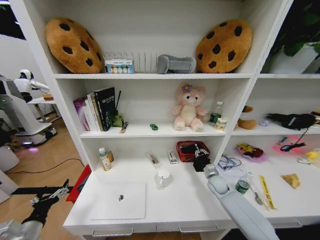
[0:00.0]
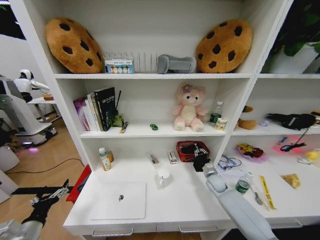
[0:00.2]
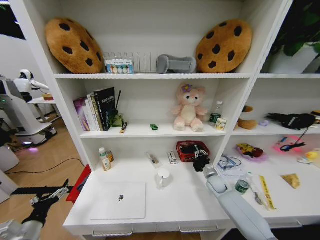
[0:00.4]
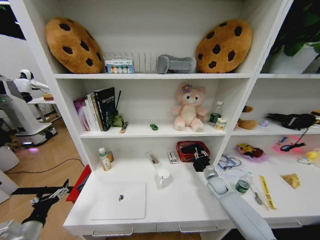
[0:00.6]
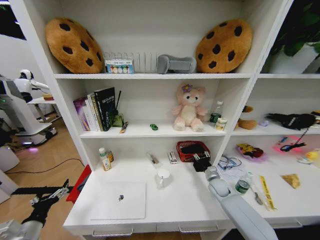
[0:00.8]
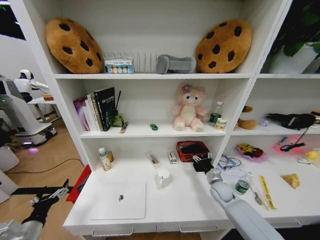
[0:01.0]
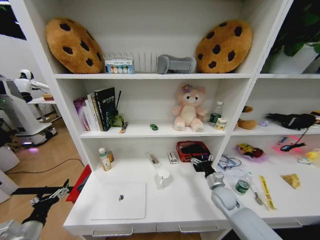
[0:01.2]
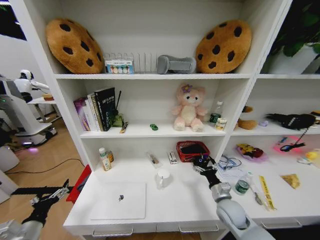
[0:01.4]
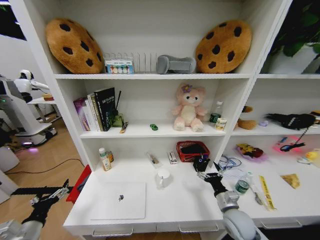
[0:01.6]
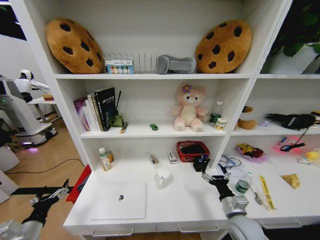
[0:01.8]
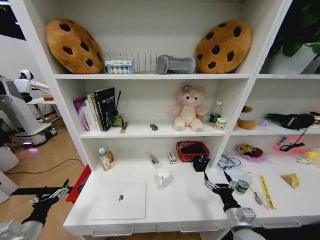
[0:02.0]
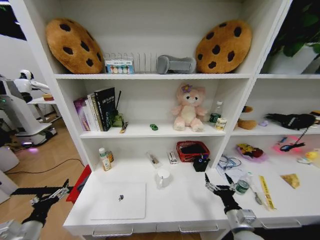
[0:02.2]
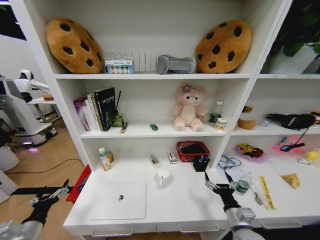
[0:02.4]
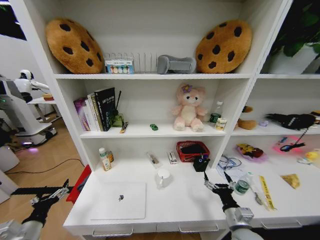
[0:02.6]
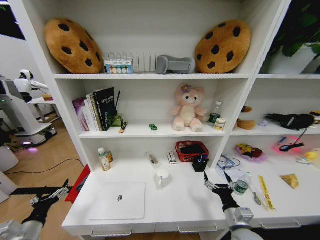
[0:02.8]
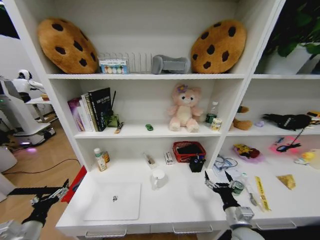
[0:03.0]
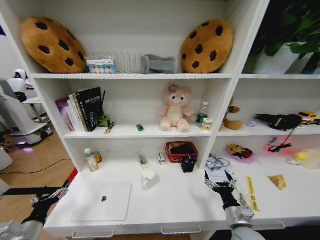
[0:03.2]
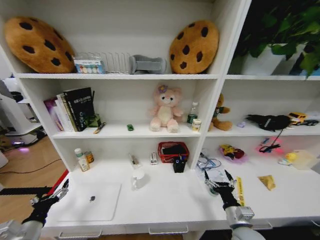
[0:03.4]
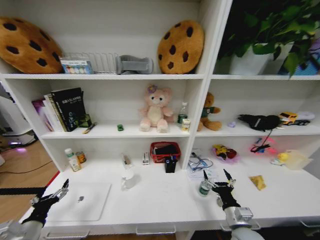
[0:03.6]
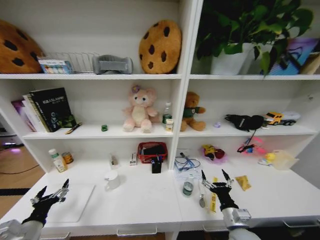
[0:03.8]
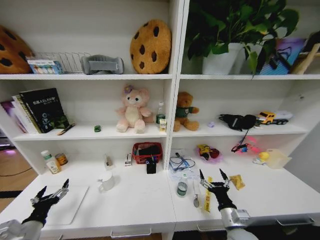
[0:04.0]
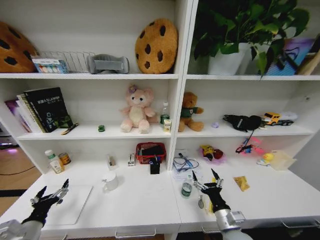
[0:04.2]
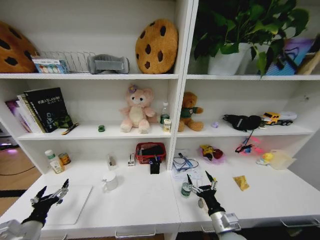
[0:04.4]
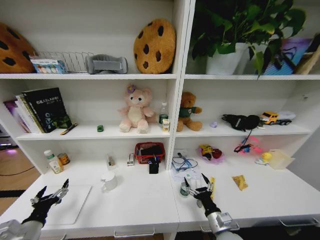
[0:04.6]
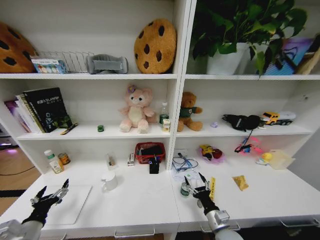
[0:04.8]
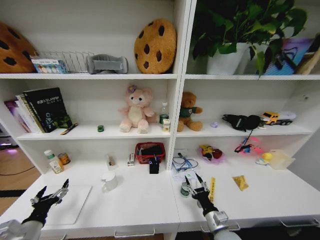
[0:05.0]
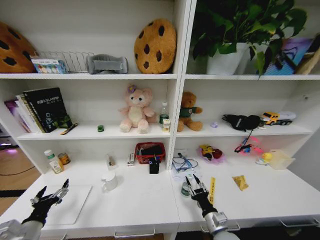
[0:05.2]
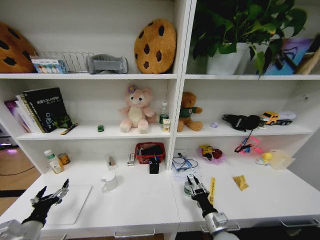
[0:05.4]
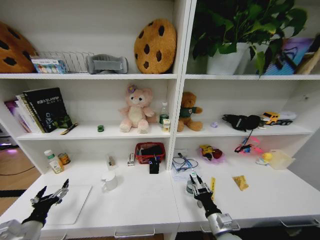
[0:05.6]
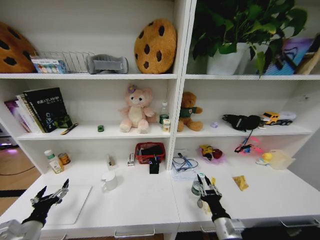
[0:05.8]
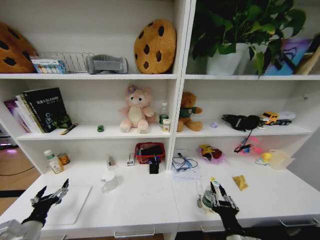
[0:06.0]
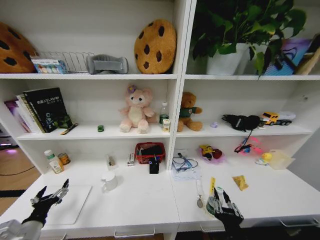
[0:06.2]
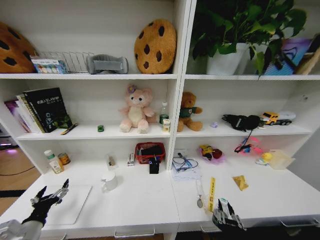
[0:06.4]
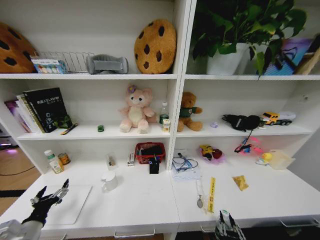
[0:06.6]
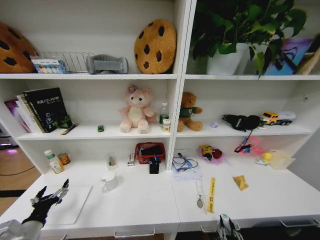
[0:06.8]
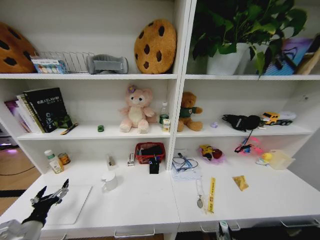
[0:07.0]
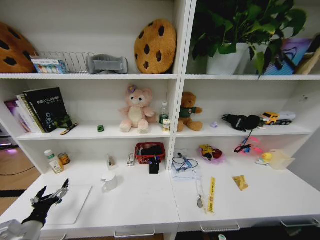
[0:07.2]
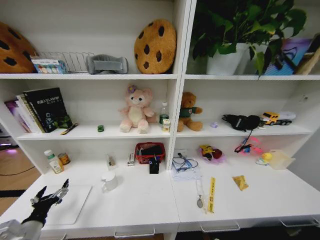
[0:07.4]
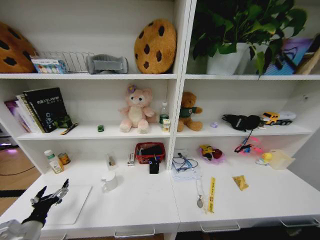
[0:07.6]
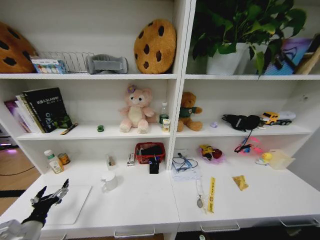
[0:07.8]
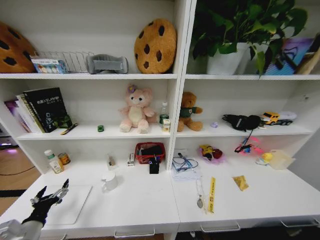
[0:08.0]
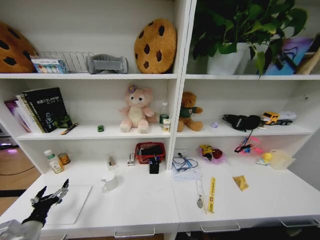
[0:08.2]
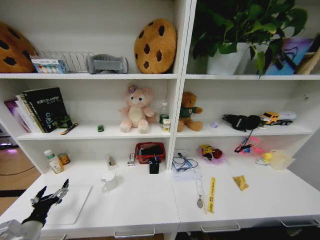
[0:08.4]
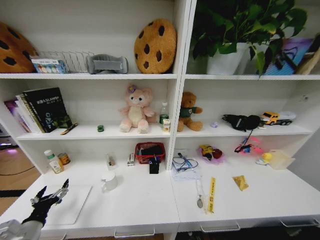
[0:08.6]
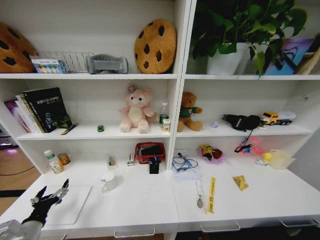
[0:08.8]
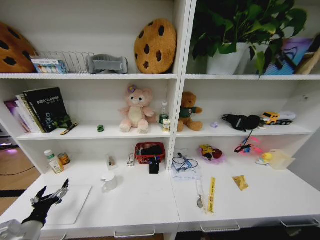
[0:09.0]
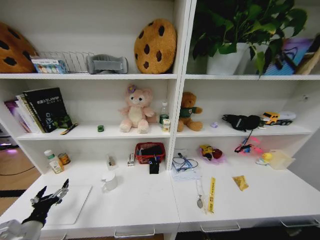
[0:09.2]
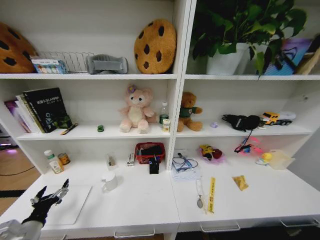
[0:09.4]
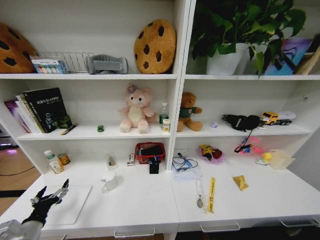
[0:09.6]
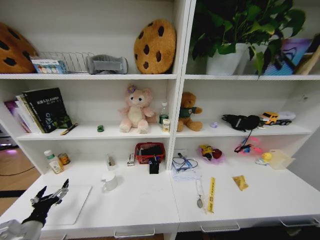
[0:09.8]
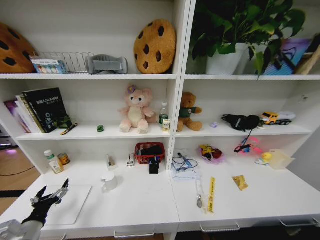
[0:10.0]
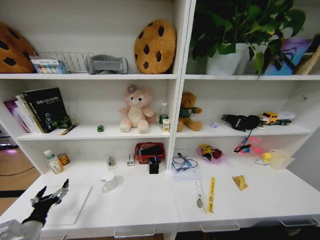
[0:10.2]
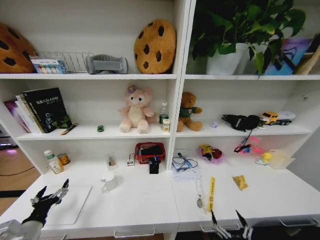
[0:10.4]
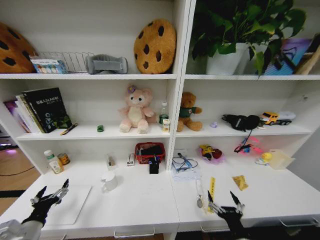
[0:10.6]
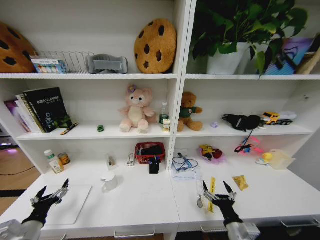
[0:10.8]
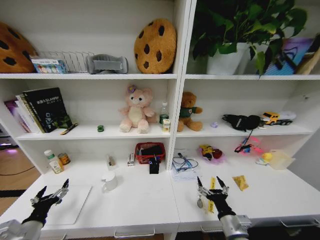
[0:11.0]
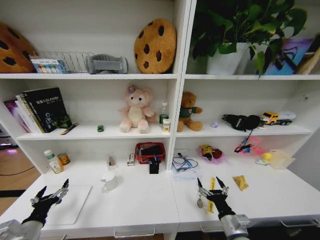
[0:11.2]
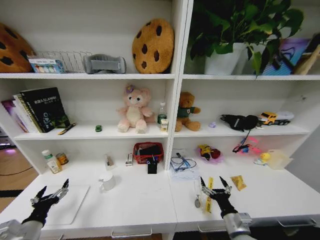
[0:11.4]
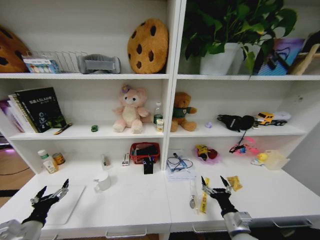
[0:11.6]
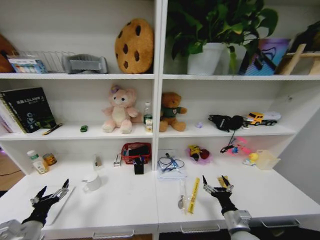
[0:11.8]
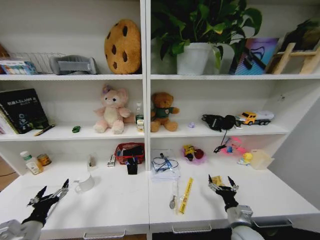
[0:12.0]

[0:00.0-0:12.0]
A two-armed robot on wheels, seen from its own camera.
Task of the whole recording: Organize the objects on the table.
0:00.0 to 0:01.6: The right gripper is displaced backward by roughly 15 cm, and opens.
0:01.6 to 0:03.0: The right gripper heads backward, covering approximately 5 cm.
0:04.4 to 0:06.0: The right gripper goes about 10 cm backward and upward, and closes.
0:06.0 to 0:07.6: The right gripper goes some 30 cm downward and backward.
0:09.0 to 0:10.4: The right gripper shifts about 35 cm upward.
0:10.4 to 0:12.0: The right gripper heads forward, covering approximately 15 cm.

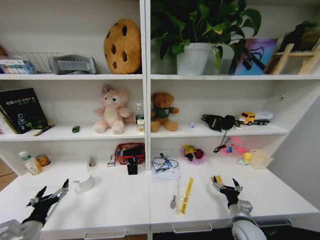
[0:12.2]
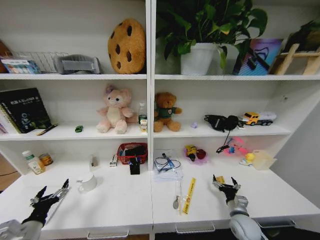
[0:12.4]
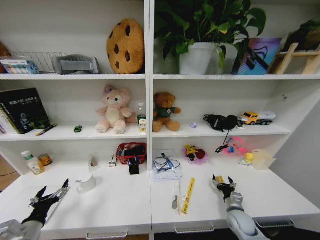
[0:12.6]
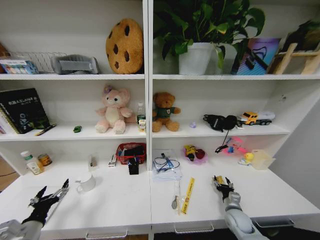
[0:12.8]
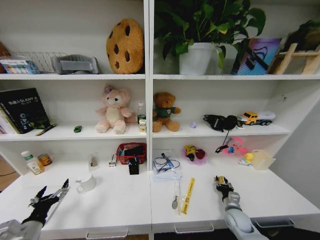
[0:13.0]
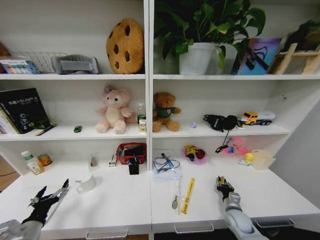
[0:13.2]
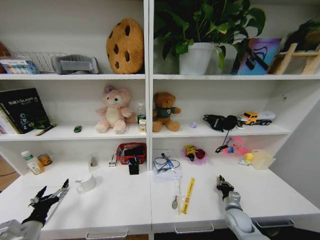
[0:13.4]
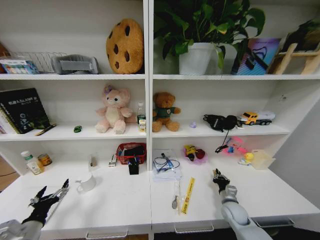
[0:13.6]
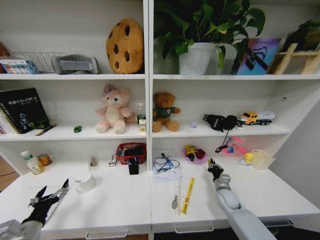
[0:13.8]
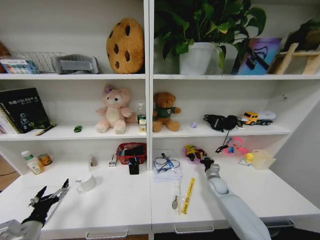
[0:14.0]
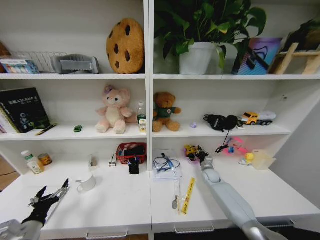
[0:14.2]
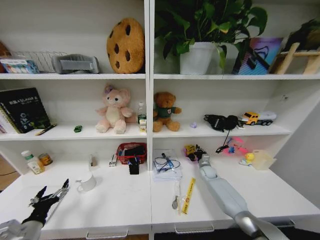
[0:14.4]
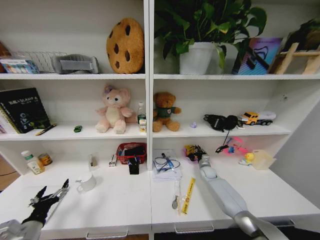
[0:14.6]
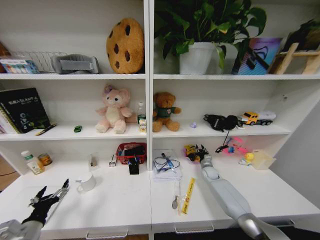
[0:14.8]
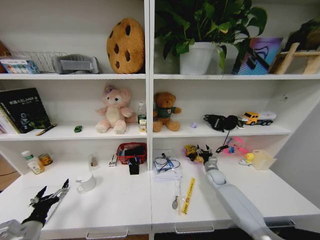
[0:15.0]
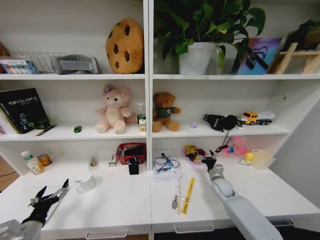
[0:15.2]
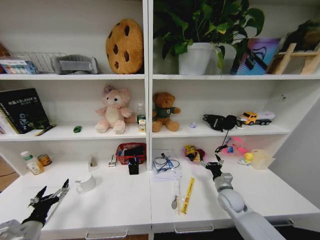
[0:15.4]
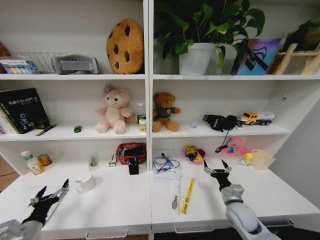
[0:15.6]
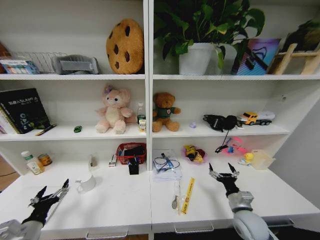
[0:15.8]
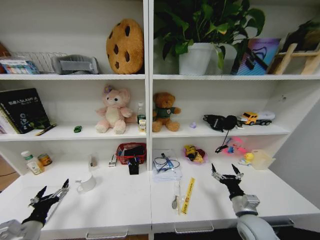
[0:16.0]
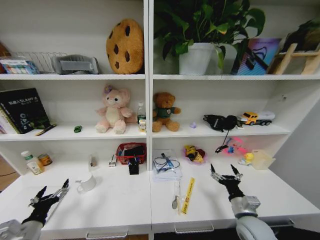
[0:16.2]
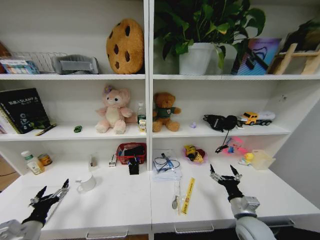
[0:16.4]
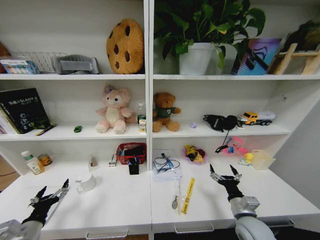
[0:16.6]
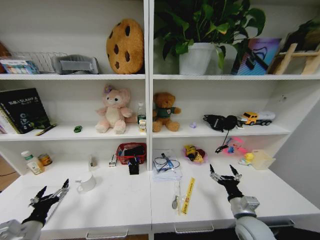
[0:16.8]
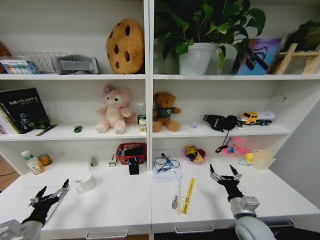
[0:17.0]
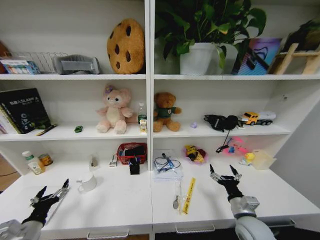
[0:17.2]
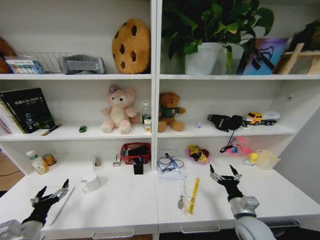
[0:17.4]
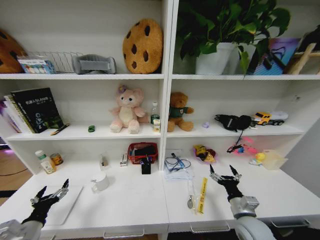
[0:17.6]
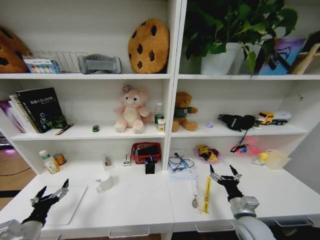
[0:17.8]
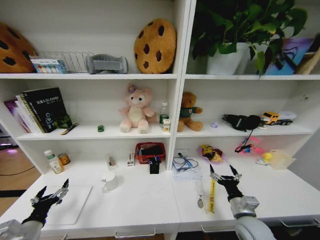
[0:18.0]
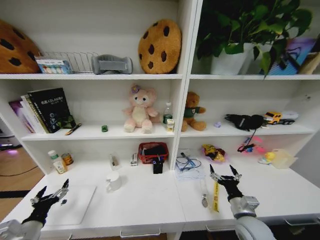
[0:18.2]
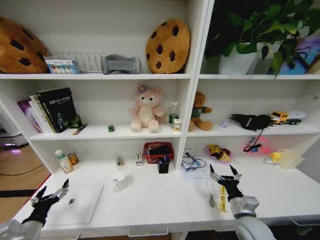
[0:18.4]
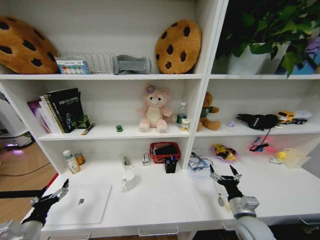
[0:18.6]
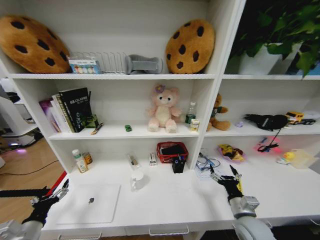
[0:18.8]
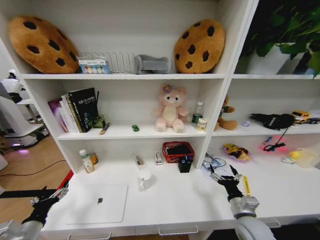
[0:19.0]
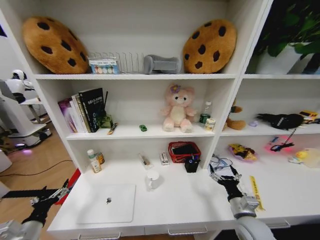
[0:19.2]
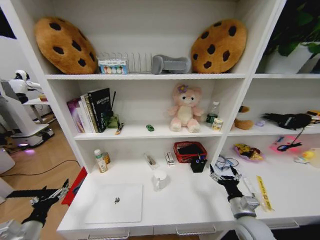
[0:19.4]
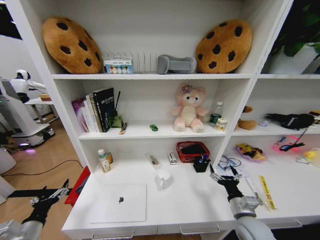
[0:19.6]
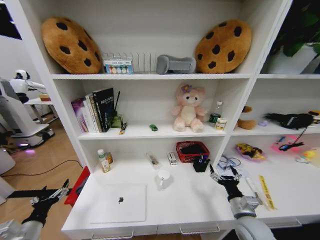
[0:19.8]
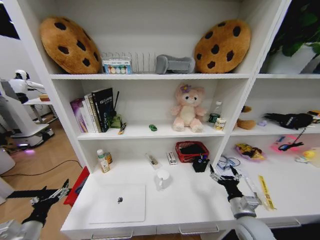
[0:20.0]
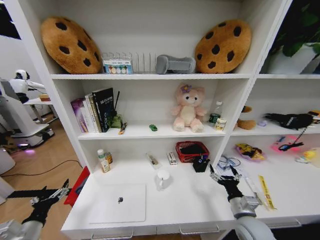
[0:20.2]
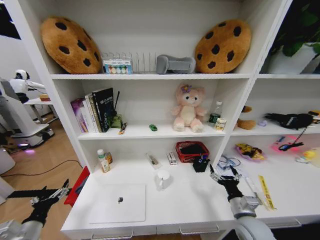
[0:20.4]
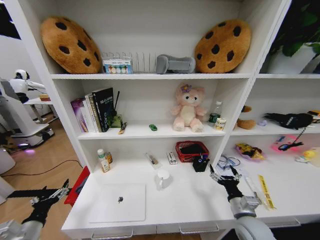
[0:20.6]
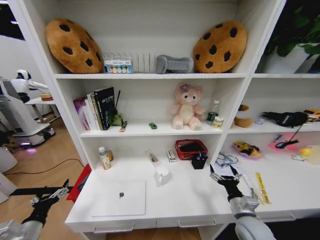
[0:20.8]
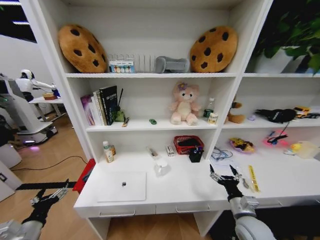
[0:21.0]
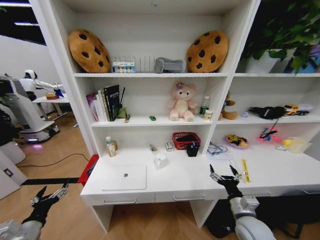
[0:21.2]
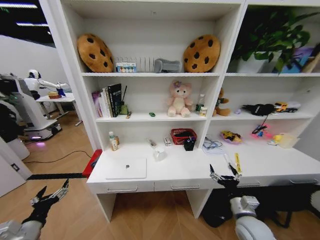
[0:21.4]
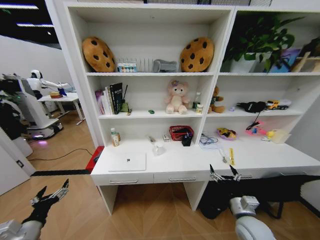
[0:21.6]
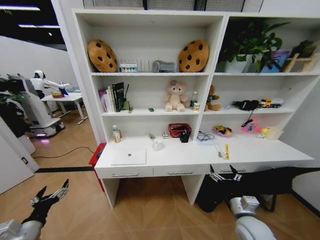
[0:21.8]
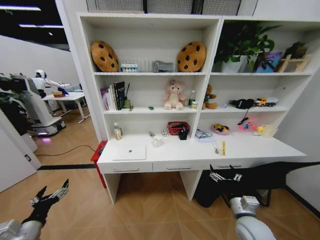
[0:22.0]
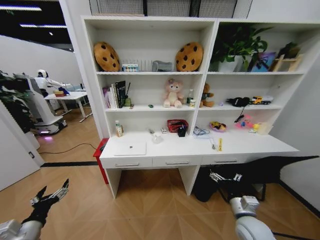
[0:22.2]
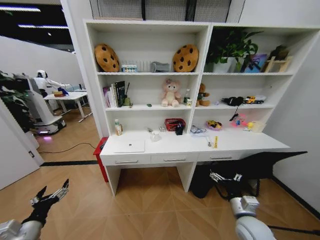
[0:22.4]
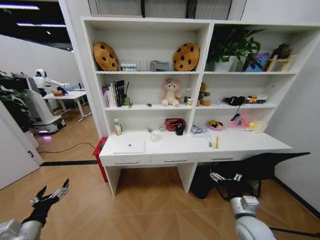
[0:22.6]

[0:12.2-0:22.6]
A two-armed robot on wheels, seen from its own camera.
Task of the whole recording: Organize the objects on the table.
0:12.2 to 0:13.6: The right gripper moves forward, approximately 10 cm, and closes up.
0:13.6 to 0:15.2: The right gripper travels forward by approximately 10 cm, and opens.
0:15.2 to 0:16.6: The right gripper heads backward, covering approximately 20 cm.
